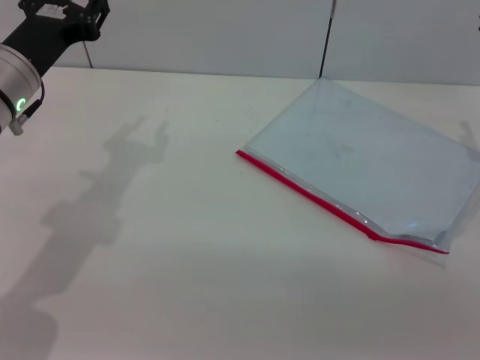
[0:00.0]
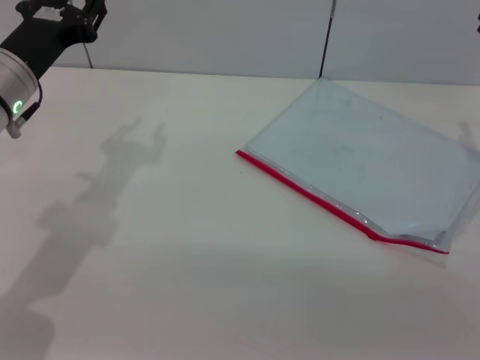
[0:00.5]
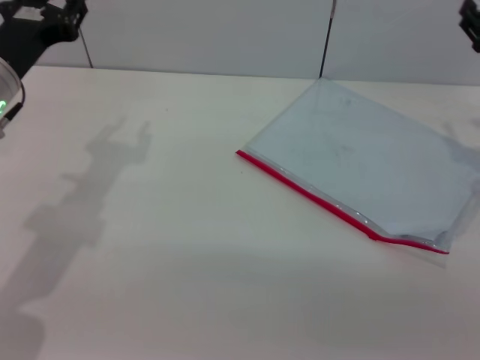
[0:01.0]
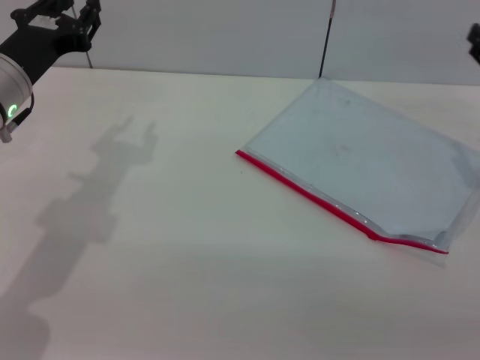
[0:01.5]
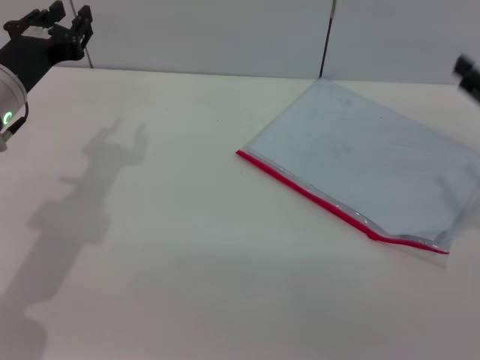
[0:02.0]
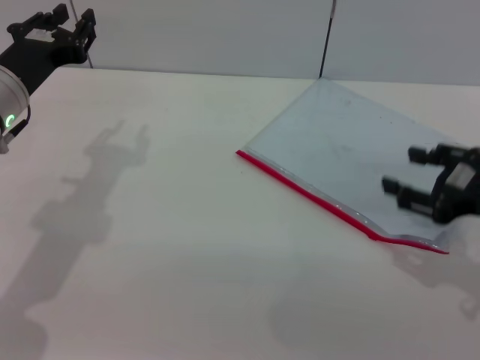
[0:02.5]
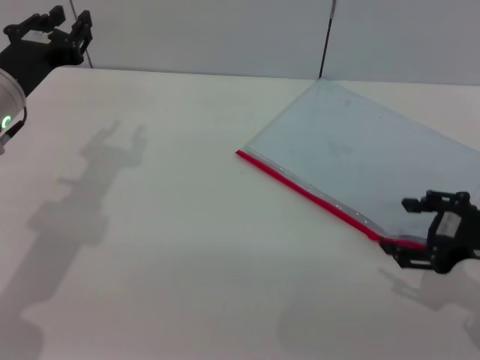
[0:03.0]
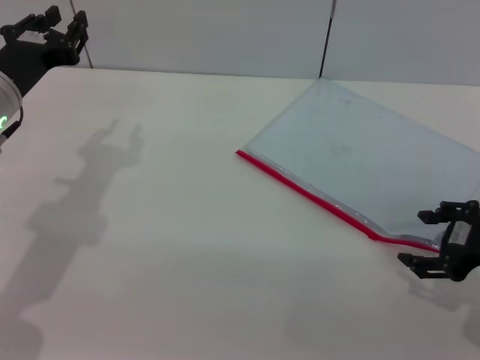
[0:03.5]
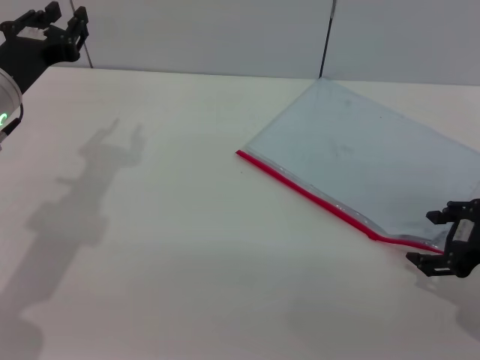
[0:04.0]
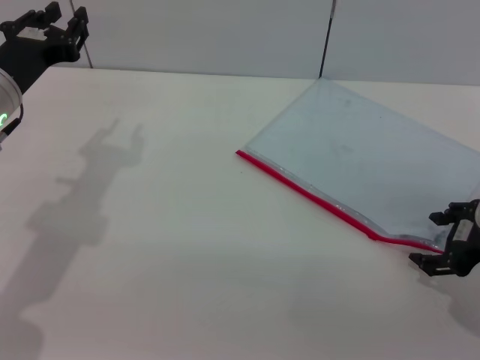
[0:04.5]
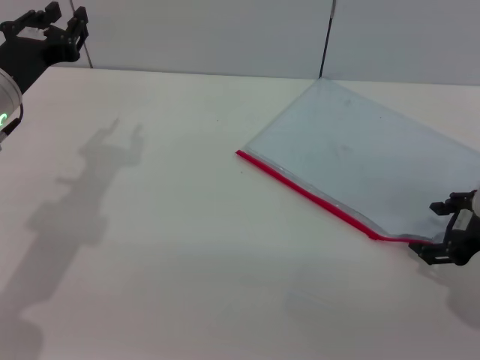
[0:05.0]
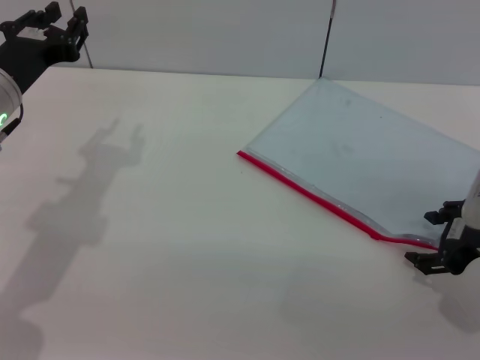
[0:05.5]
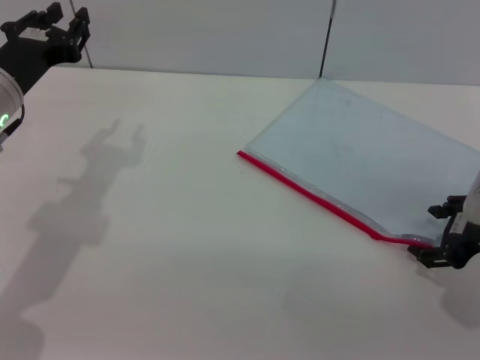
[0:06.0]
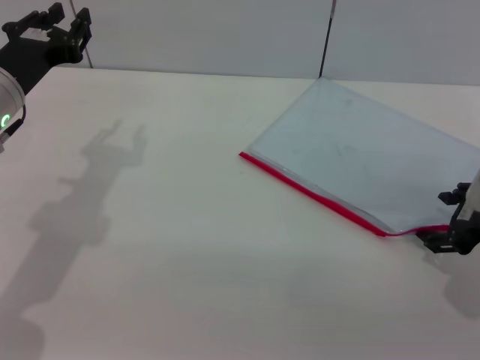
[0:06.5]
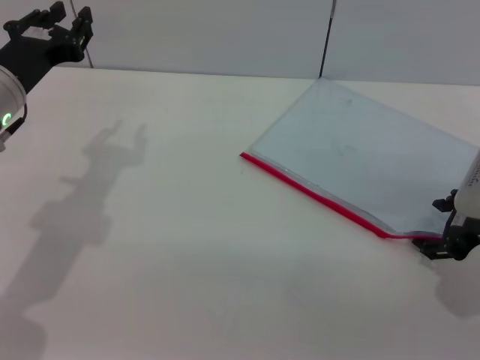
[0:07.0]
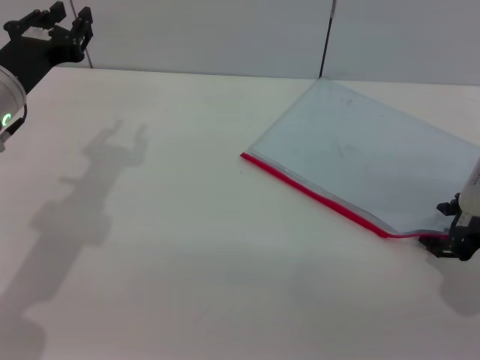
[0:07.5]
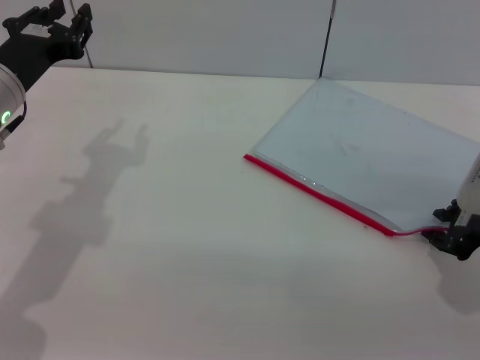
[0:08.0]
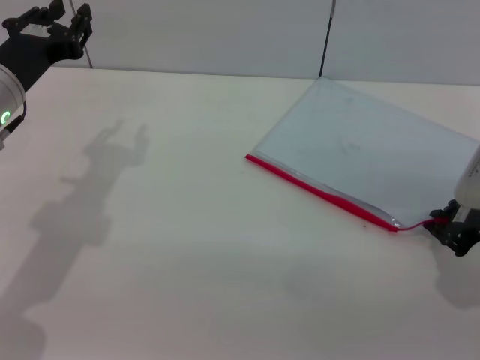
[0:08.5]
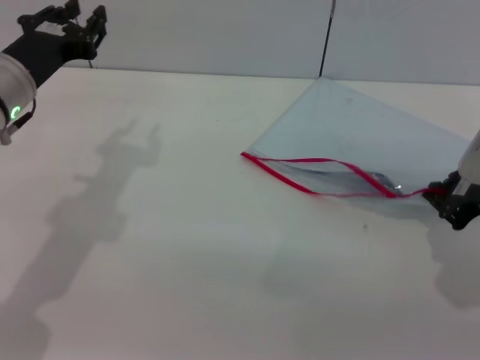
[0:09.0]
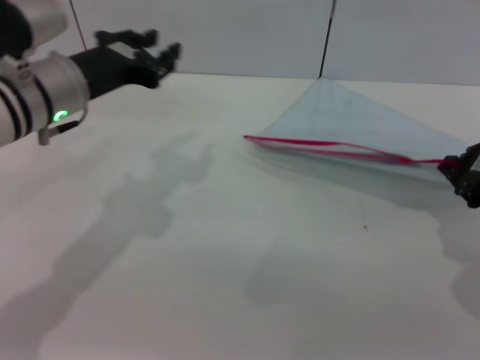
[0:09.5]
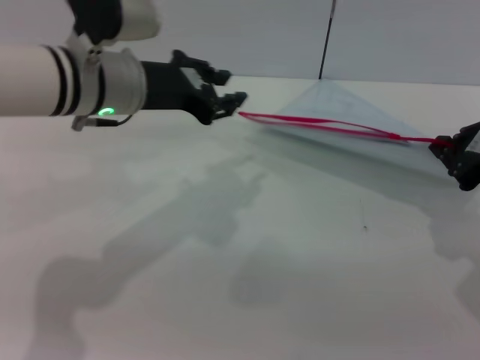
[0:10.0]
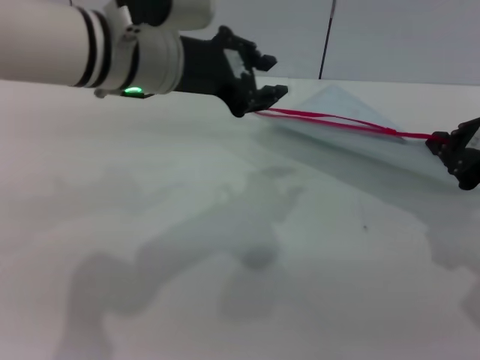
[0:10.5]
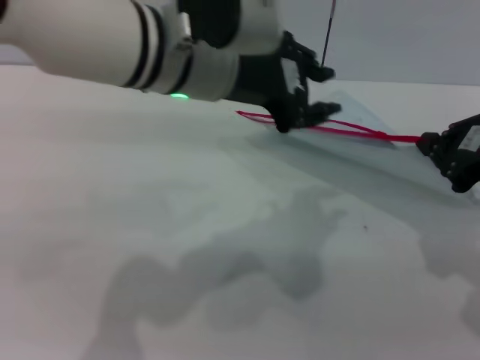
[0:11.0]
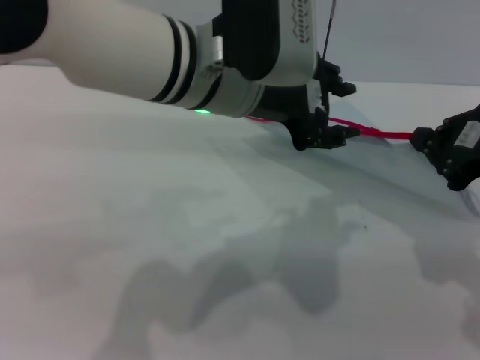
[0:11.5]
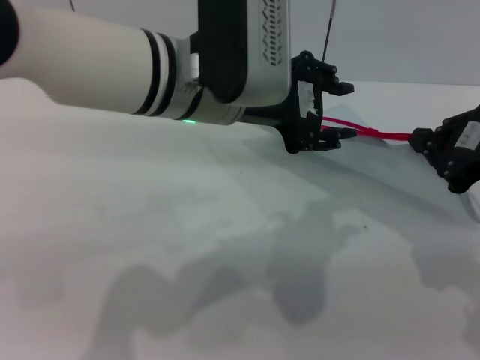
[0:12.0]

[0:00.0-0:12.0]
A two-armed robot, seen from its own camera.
0:04.0 to 0:06.0: The grippers move only a little.
0:06.0 to 0:08.0: The right gripper closes up.
0:08.0 to 0:10.0: The right gripper heads upward, covering about 10 cm, and closes. The left gripper moves to the right, some 10 cm.
0:10.0 to 0:12.0: The right gripper shifts by approximately 5 cm. Meanwhile the left gripper travels to the right by approximately 10 cm.

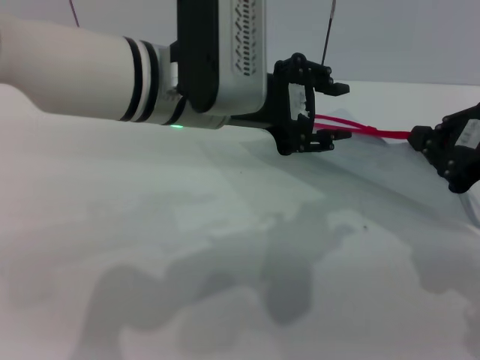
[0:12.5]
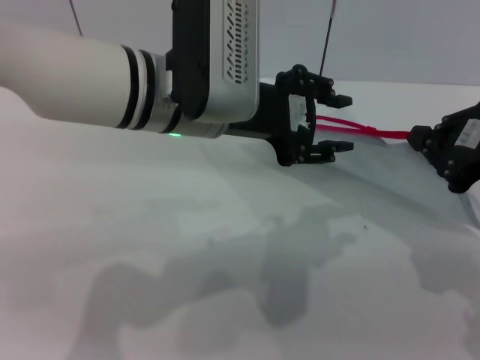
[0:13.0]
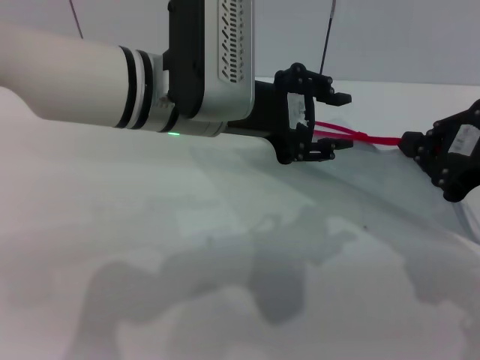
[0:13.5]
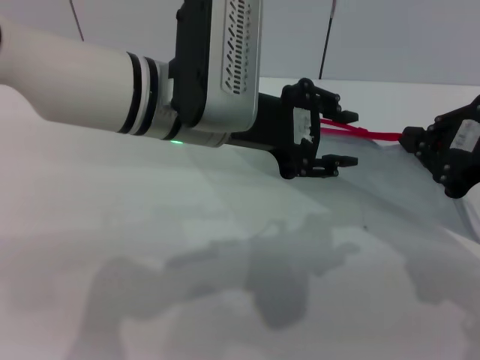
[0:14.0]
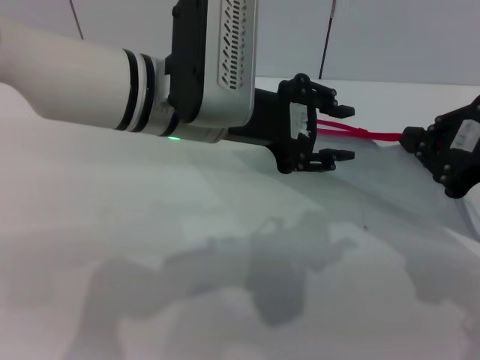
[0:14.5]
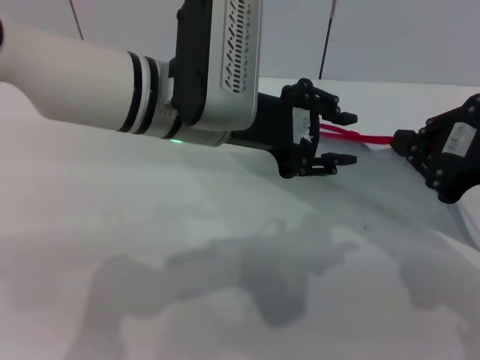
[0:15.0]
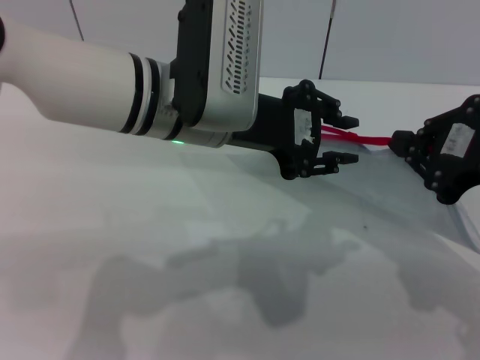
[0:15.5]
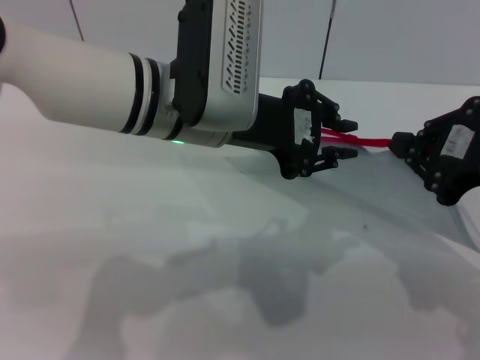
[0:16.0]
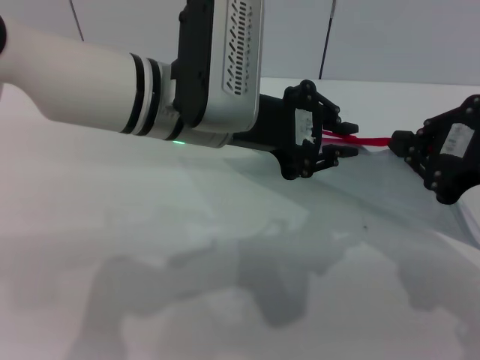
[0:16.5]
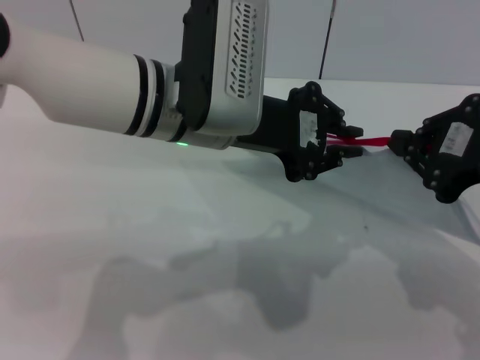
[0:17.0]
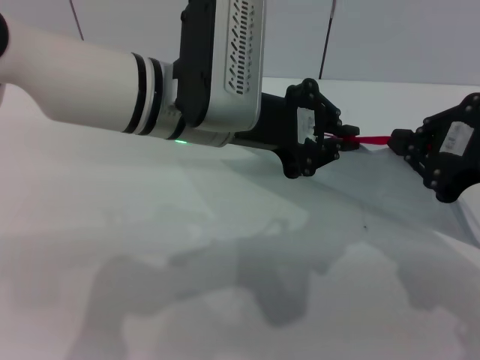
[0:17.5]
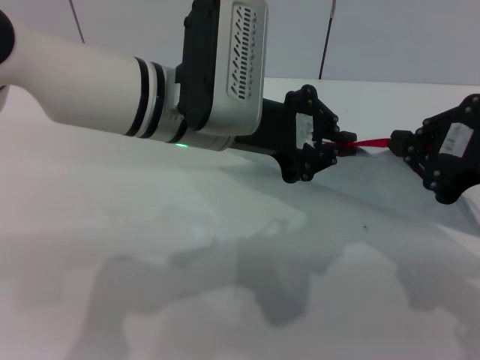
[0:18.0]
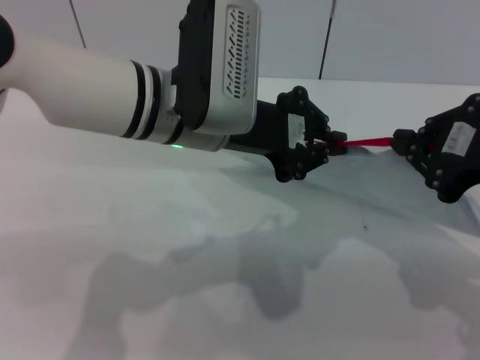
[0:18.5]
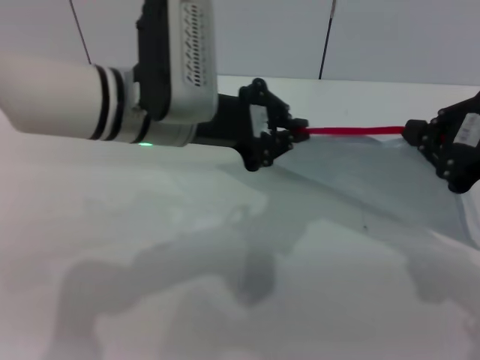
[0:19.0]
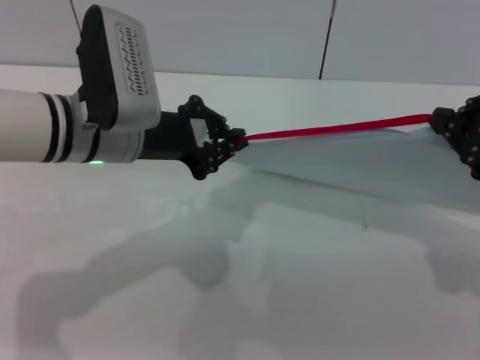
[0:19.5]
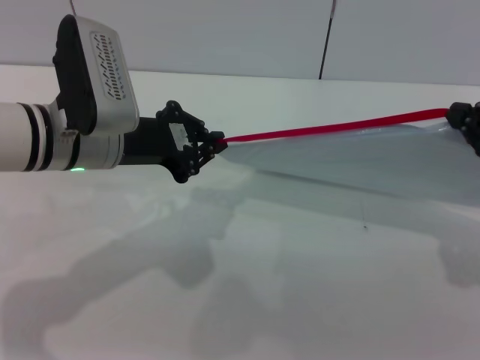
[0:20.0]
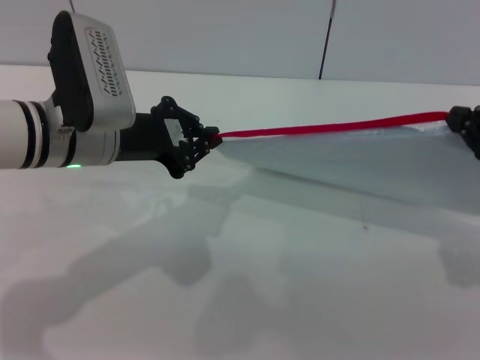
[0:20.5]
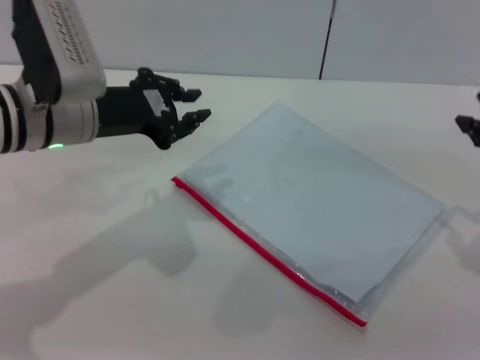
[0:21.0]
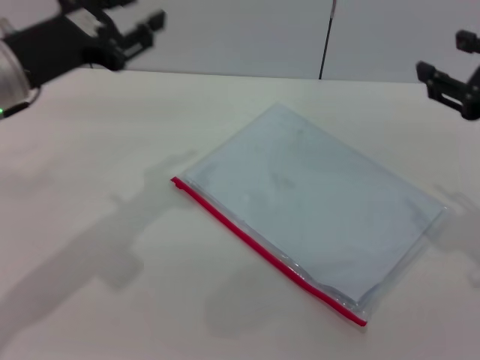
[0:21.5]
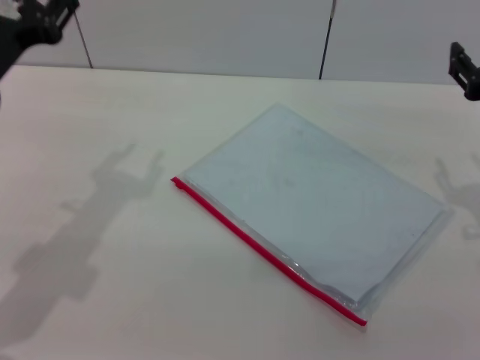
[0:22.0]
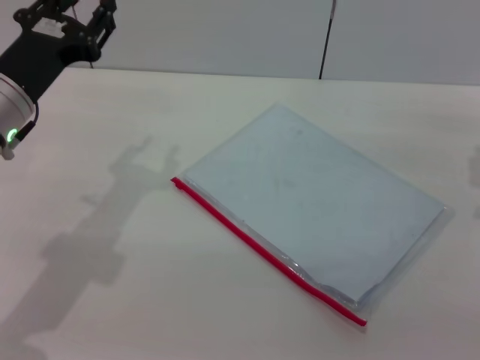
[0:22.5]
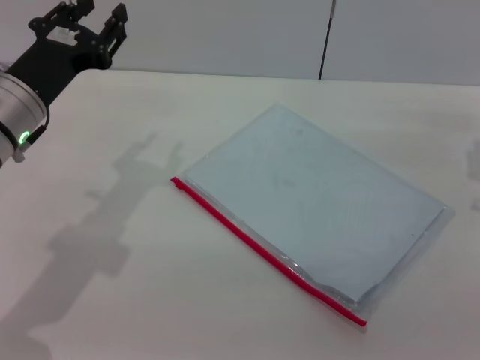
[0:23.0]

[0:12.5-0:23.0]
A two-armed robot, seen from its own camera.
Step, 0:13.0 to 0:20.5: Pulling up the zipper on the transparent plastic bag with the left gripper to close it.
0:12.5 to 0:14.5: The grippers move only a little.
0:14.5 to 0:16.5: The left gripper closes up.
0:16.5 to 0:19.0: The left gripper closes.
0:19.0 to 0:21.0: The left gripper travels to the left by about 10 cm. The right gripper shifts by roughly 5 cm.
0:21.0 to 0:23.0: The left gripper opens, while the right gripper travels downward and forward by some 15 cm, and opens up.
